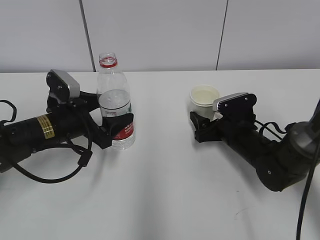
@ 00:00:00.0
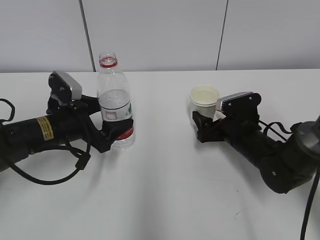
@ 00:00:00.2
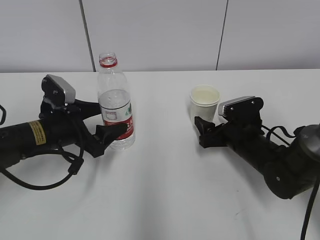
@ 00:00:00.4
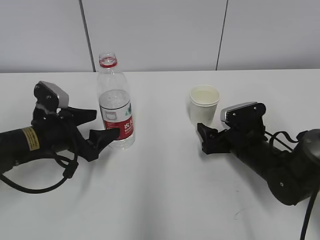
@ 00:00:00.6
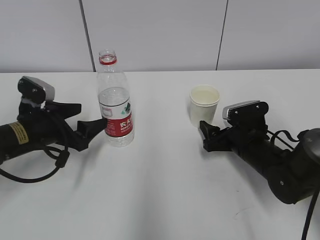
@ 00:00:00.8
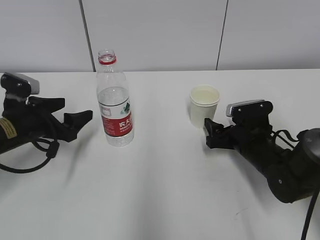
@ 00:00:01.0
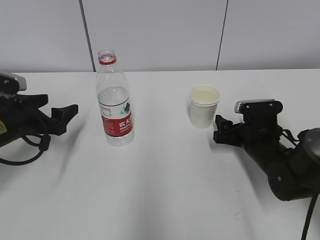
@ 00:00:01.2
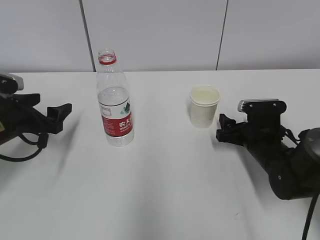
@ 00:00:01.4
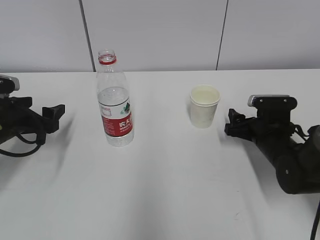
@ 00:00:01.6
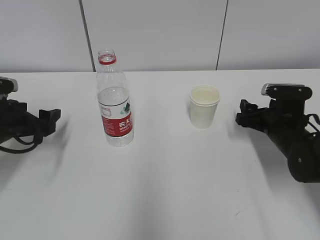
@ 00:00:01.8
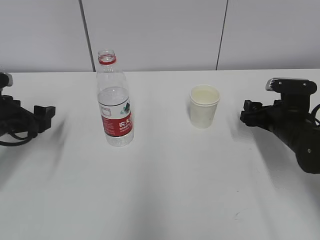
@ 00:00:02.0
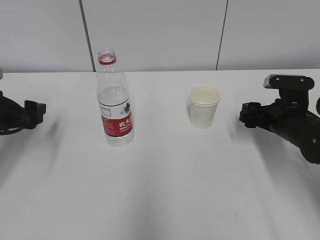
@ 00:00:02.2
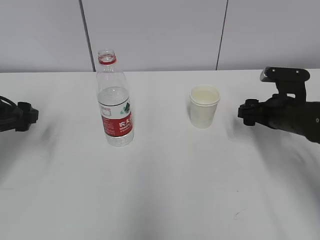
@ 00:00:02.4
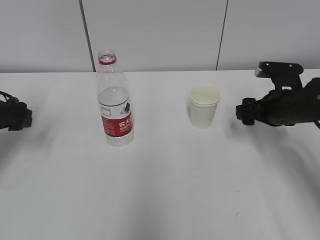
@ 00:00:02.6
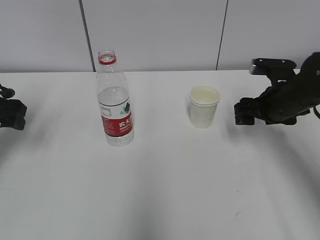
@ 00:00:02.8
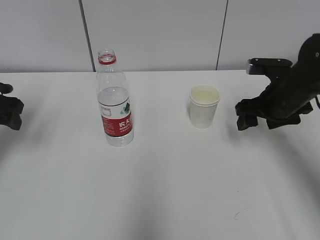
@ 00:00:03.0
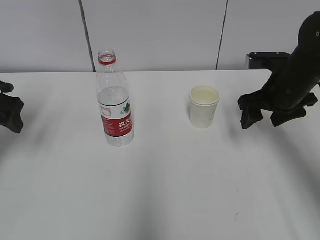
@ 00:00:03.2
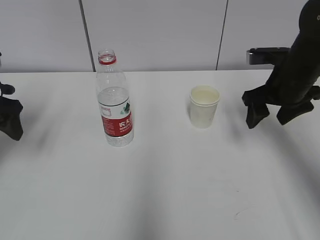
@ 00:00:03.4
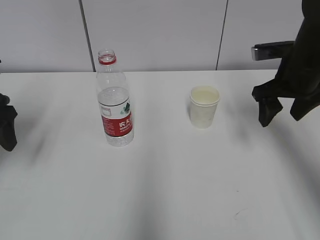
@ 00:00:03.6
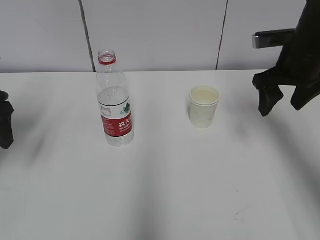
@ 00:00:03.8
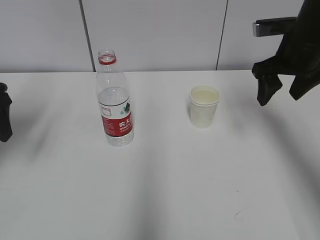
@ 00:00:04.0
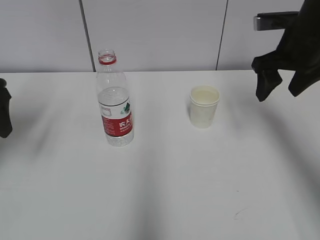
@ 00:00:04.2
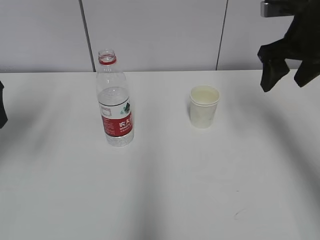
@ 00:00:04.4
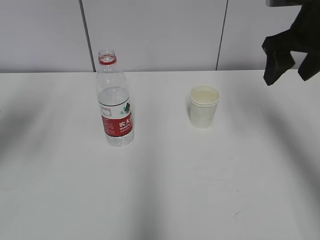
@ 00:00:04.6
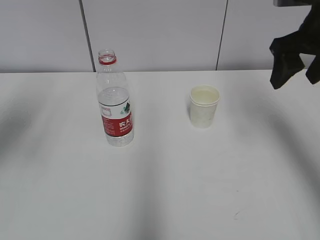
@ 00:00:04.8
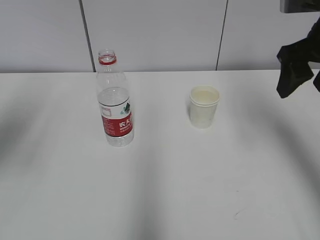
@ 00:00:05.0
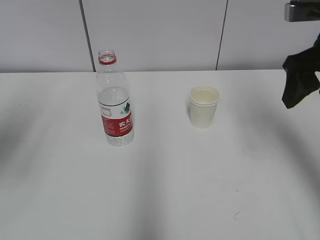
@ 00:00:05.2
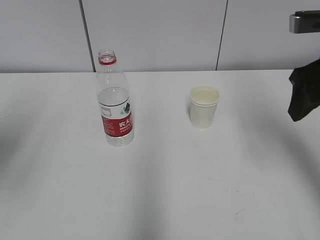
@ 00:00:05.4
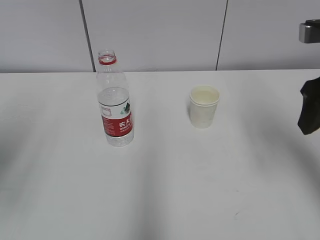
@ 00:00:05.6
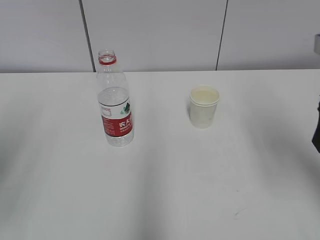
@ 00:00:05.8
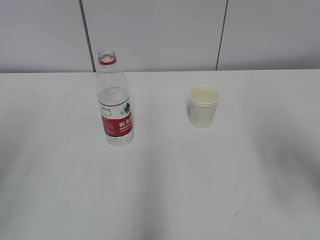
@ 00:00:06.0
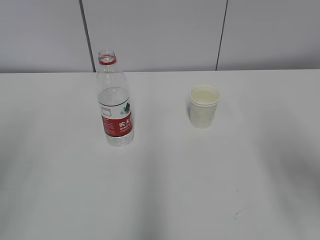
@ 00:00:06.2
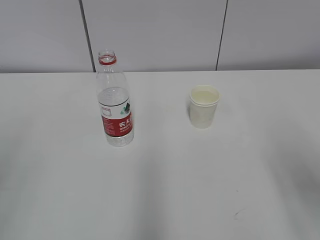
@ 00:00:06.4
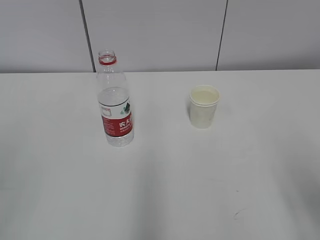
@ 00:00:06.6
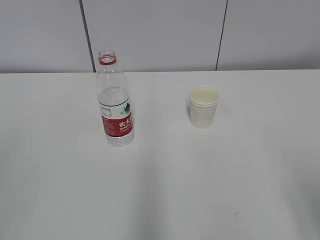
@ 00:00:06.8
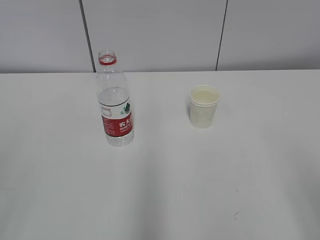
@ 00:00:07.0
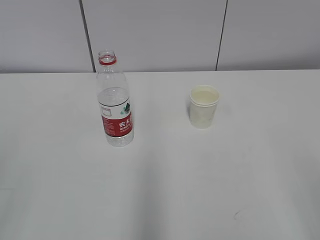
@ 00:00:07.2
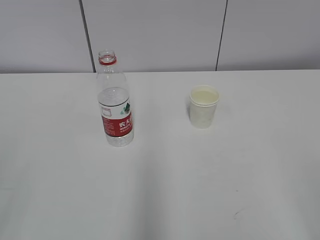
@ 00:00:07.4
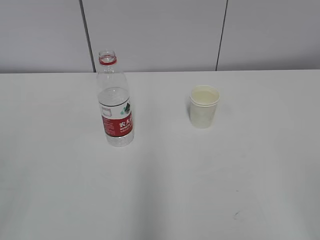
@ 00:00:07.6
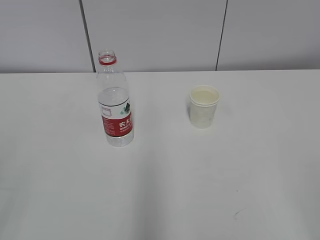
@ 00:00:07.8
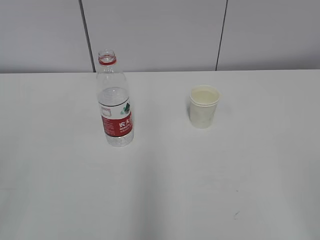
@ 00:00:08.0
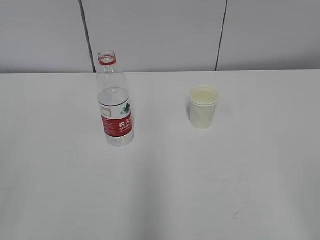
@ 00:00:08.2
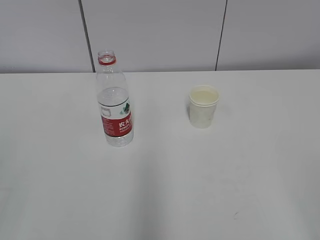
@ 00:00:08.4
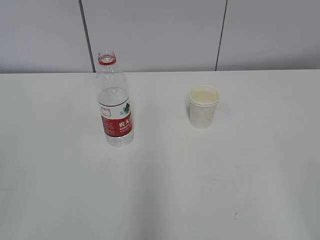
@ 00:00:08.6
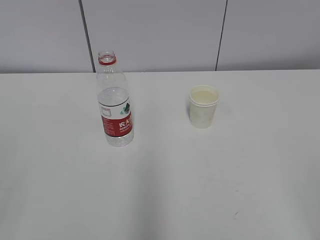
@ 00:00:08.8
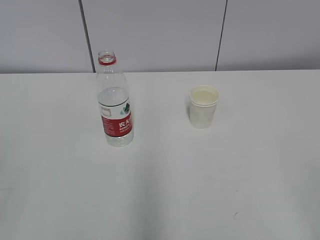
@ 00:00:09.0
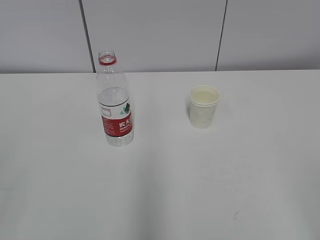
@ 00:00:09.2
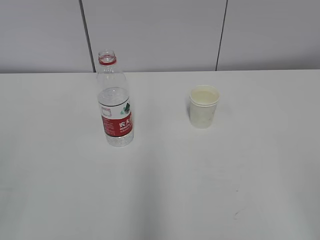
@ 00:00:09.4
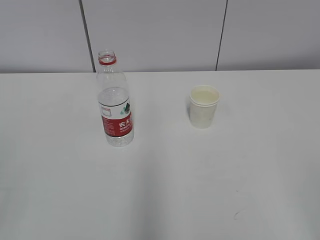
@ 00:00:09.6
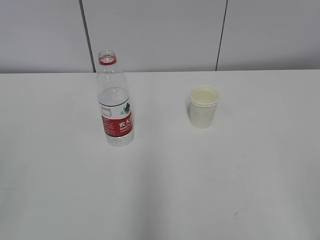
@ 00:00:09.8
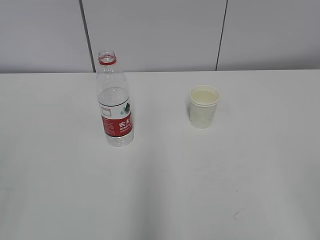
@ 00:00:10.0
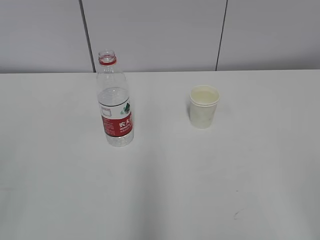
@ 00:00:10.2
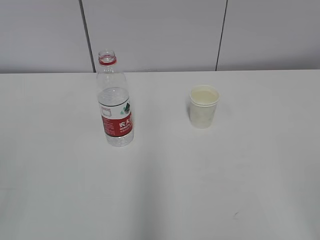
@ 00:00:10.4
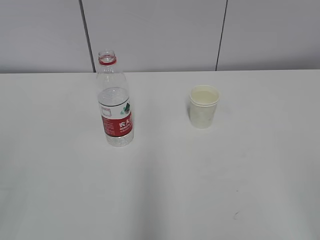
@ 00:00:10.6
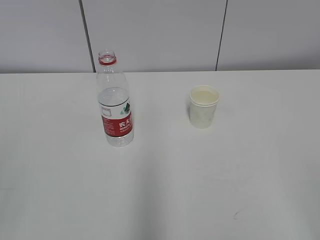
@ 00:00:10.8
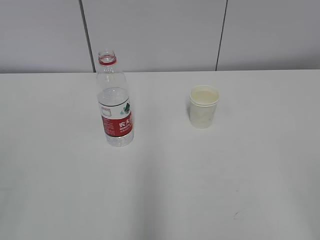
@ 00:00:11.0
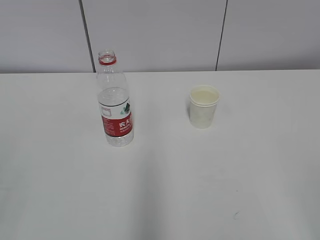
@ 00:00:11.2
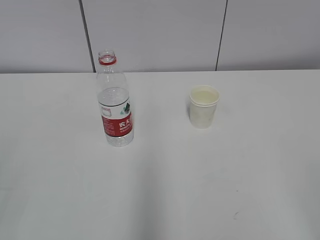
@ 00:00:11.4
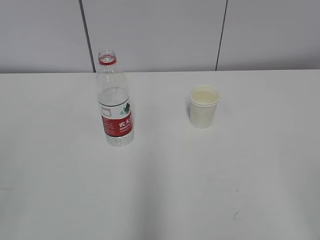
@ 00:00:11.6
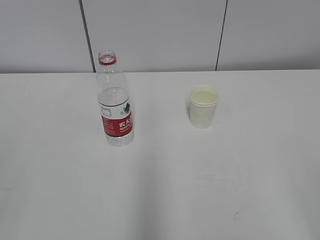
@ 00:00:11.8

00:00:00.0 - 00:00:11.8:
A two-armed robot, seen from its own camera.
00:00:00.0 - 00:00:01.4: The left gripper is displaced to the left by about 10 cm.
00:00:01.4 - 00:00:03.0: Both grippers move upward, approximately 10 cm.
00:00:03.0 - 00:00:04.4: The right gripper moves upward, roughly 15 cm, while the left gripper is displaced upward by roughly 5 cm.
00:00:04.4 - 00:00:06.0: The grippers both shift backward by some 15 cm.
00:00:06.0 - 00:00:07.4: The right gripper travels backward by some 20 cm.
00:00:07.4 - 00:00:11.8: The two grippers keep their place.
